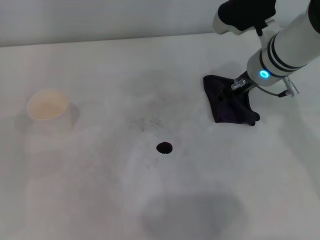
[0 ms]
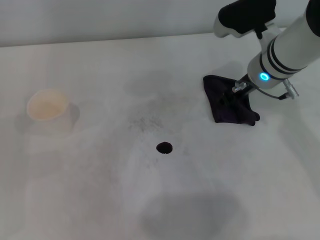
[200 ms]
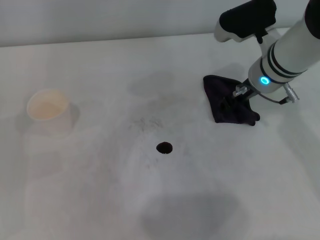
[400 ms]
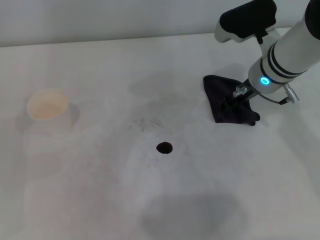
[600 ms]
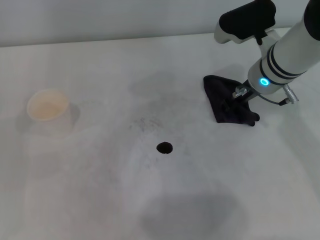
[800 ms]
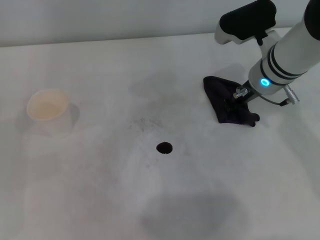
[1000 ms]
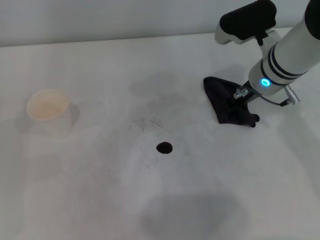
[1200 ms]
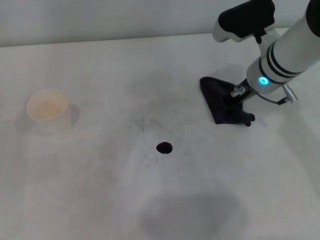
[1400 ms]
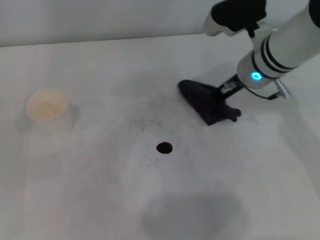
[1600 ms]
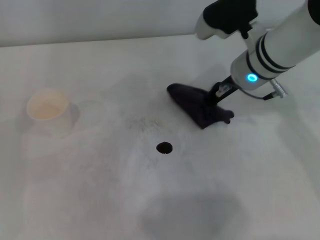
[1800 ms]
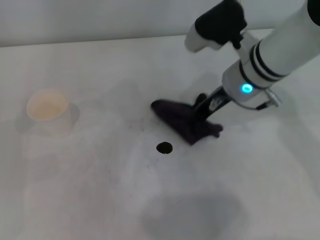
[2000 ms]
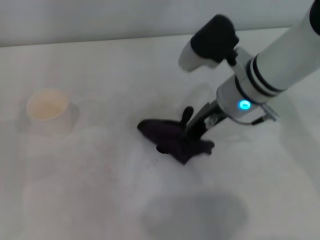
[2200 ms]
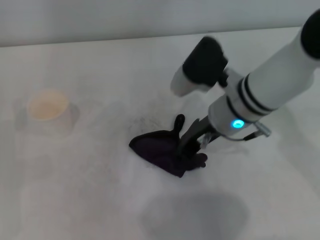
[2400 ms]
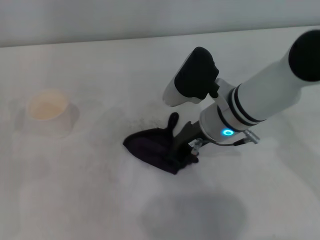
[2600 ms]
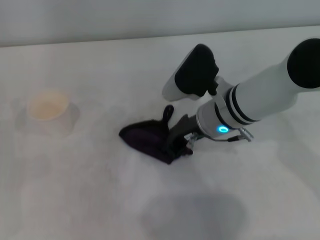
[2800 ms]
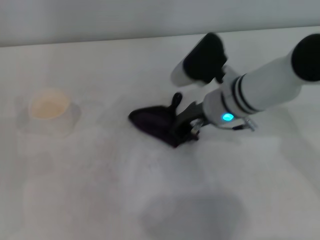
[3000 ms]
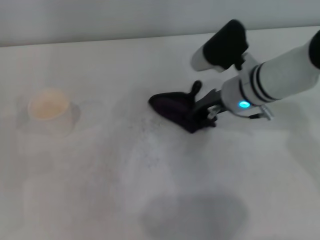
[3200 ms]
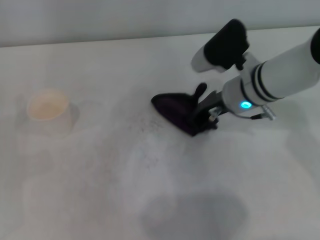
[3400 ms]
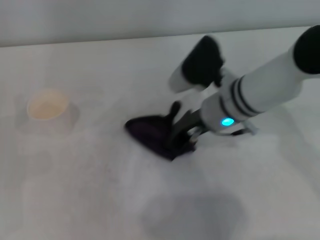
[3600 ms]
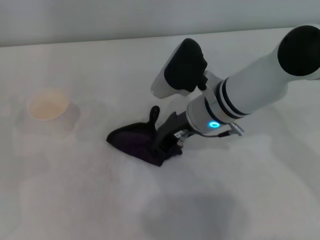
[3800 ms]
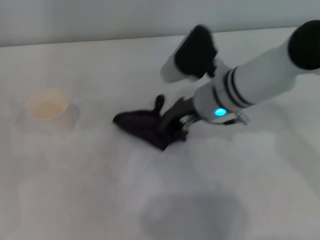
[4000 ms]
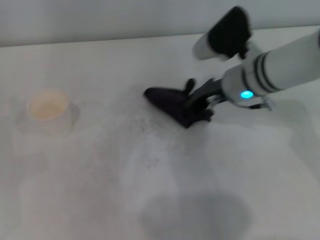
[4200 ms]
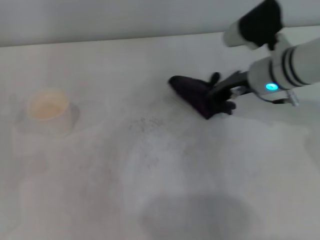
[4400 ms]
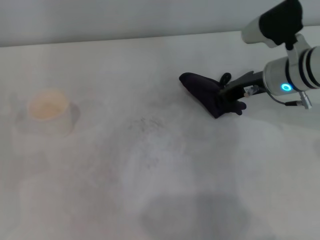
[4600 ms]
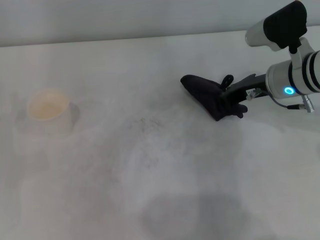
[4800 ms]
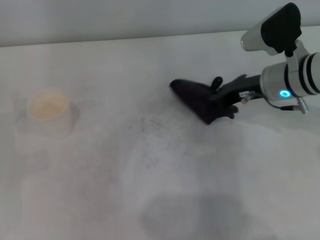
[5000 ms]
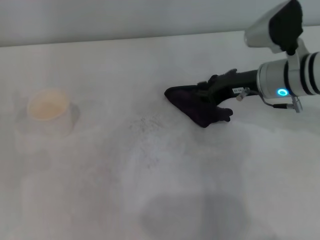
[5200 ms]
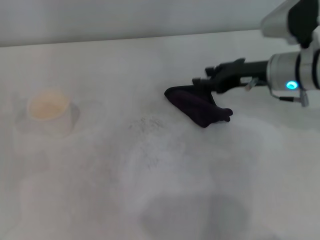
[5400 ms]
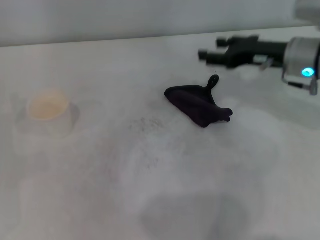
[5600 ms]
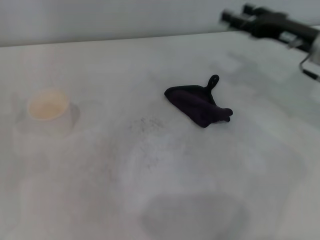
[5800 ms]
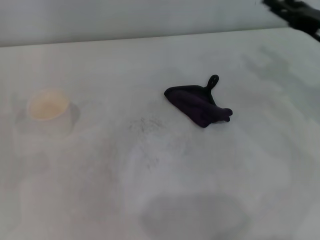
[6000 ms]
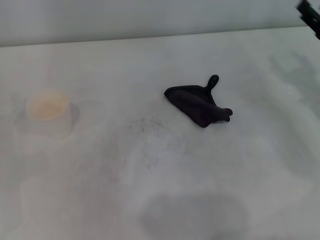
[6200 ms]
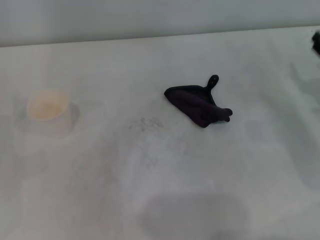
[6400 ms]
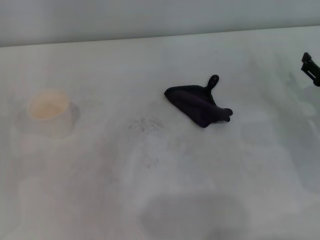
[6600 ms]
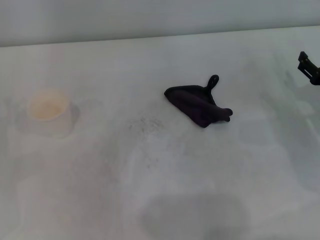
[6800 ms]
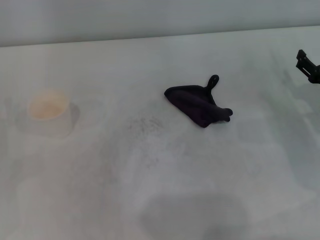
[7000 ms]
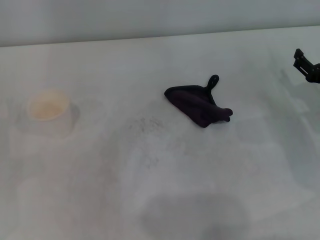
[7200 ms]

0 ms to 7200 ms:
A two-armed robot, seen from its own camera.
Step, 1400 ms to 2400 ms: Place the rag on the table with the right gripper.
Step, 2600 ms to 4000 ms: Wipe the stains off the table with the right gripper.
0 ms to 1400 ms: The right gripper closes.
1400 ms to 2800 ms: The right gripper travels to the left and backward by about 10 cm.
2800 ms to 4400 ms: The right gripper swings left and right, approximately 10 cm each way, with 2 reversals.
4400 ms to 5800 ms: The right gripper shifts about 5 cm to the right, and opens.
5800 ms to 7200 ms: The right gripper heads downward, backward and to the right, covering roughly 15 cm.
